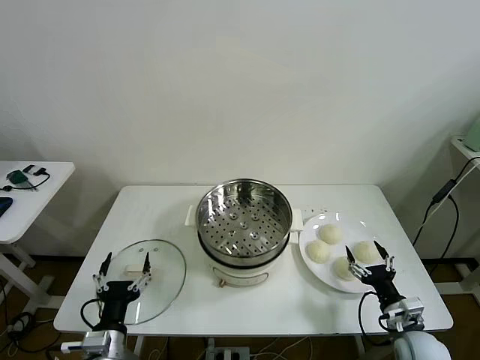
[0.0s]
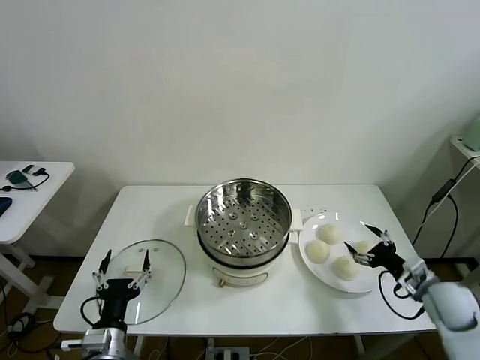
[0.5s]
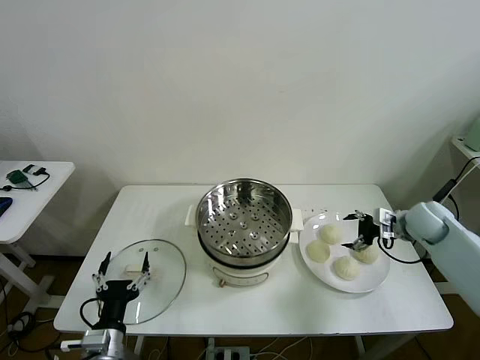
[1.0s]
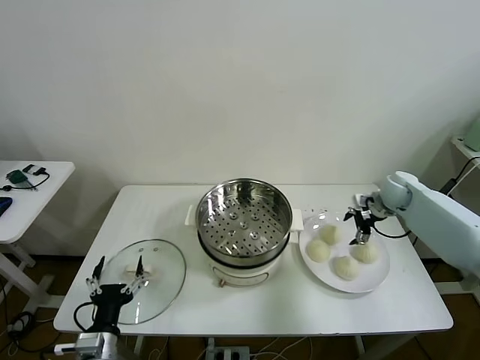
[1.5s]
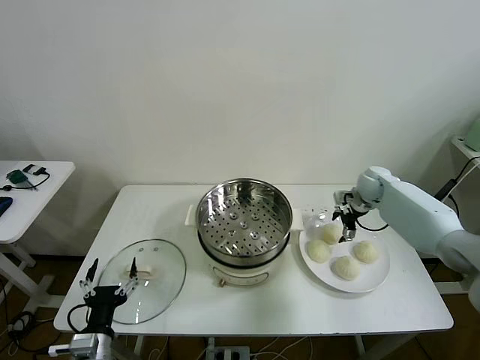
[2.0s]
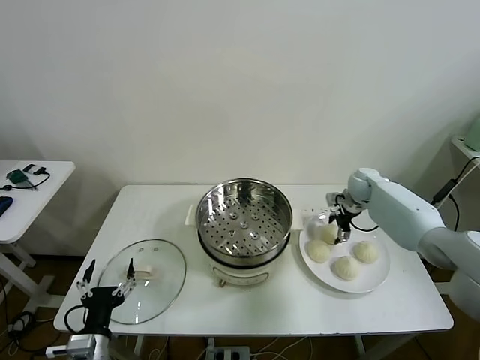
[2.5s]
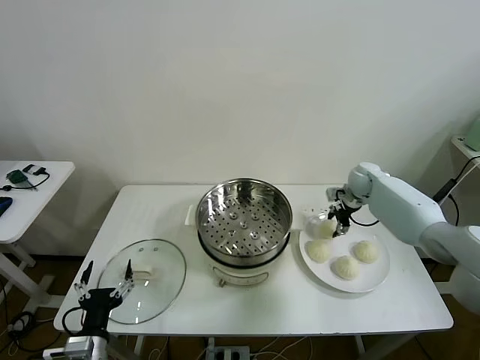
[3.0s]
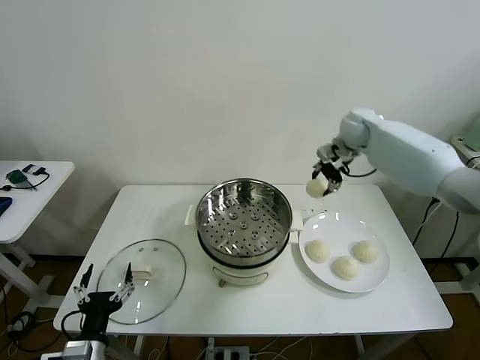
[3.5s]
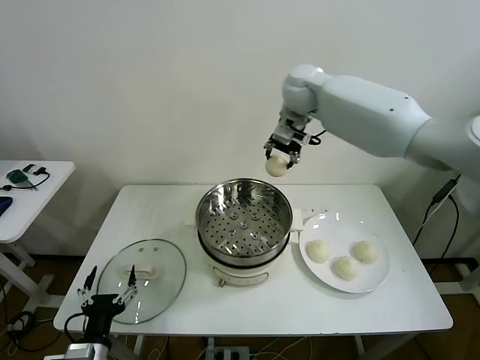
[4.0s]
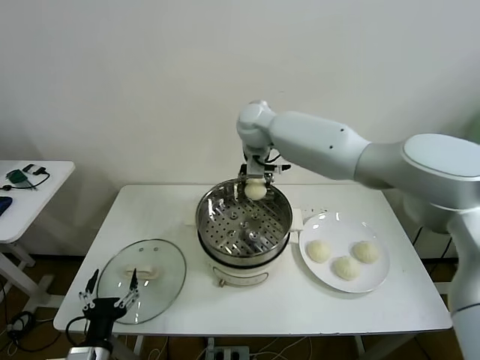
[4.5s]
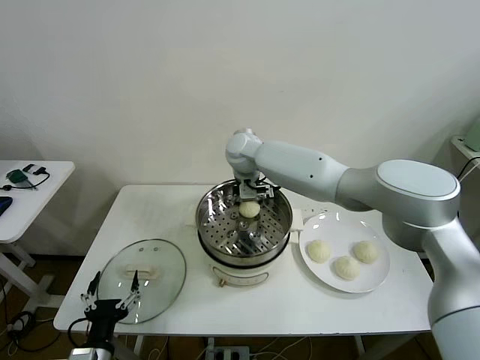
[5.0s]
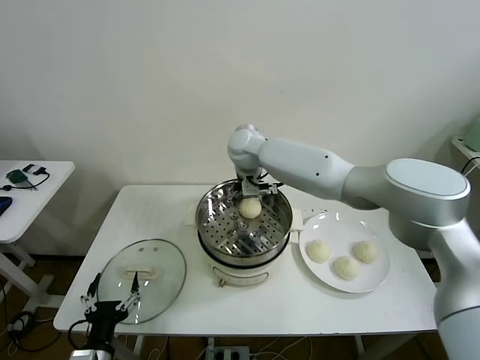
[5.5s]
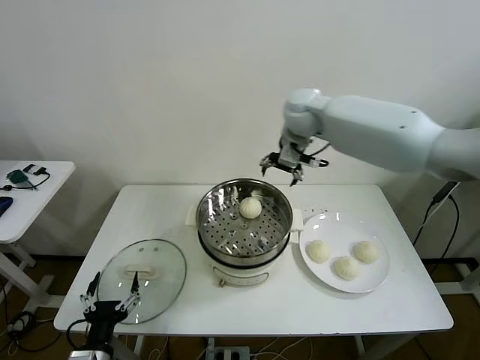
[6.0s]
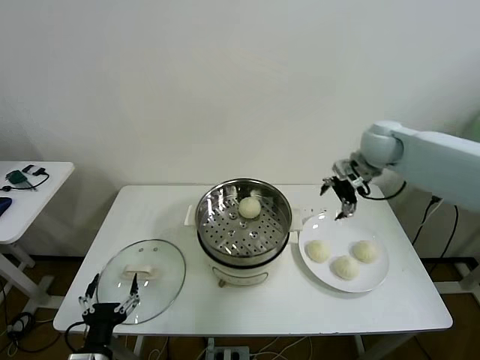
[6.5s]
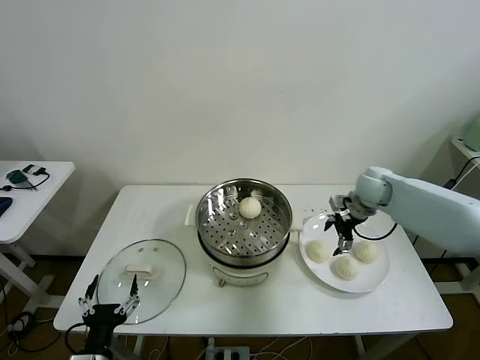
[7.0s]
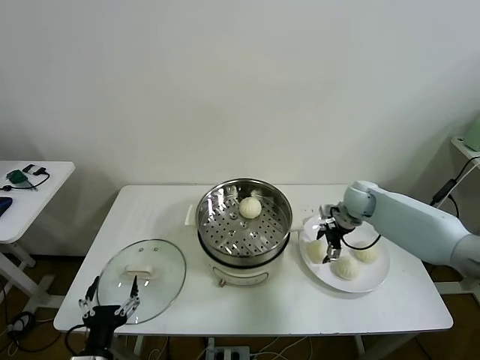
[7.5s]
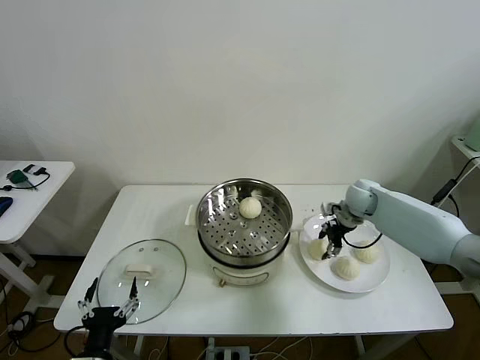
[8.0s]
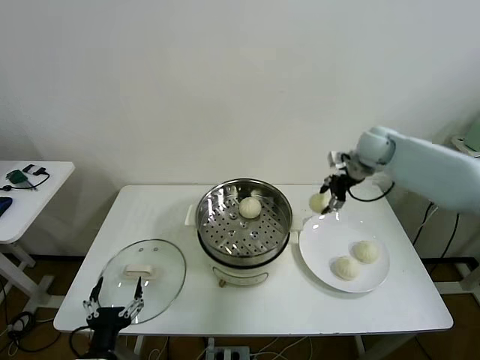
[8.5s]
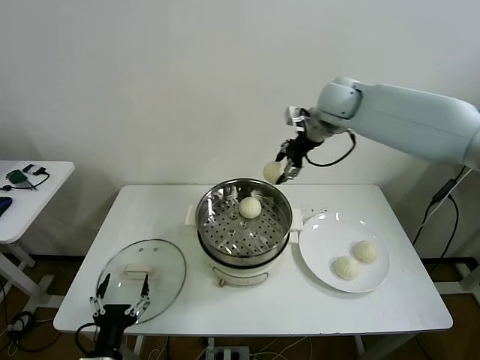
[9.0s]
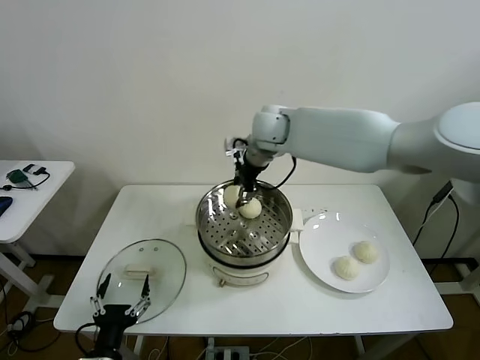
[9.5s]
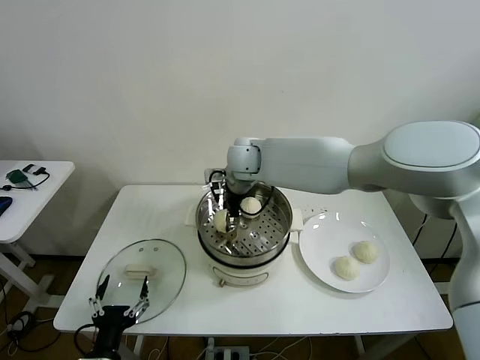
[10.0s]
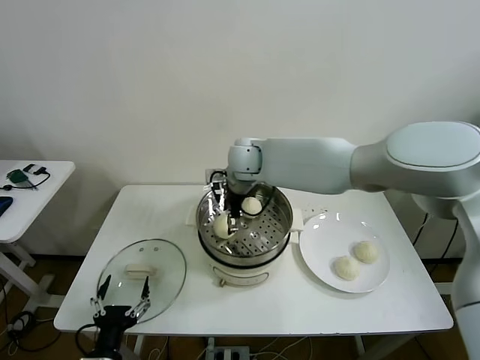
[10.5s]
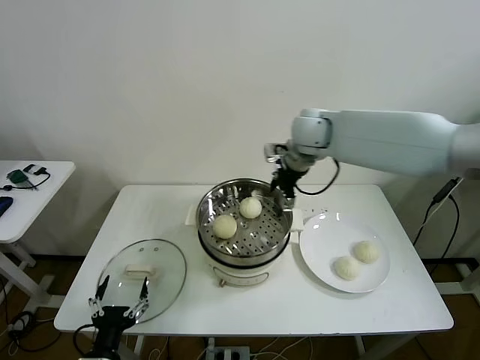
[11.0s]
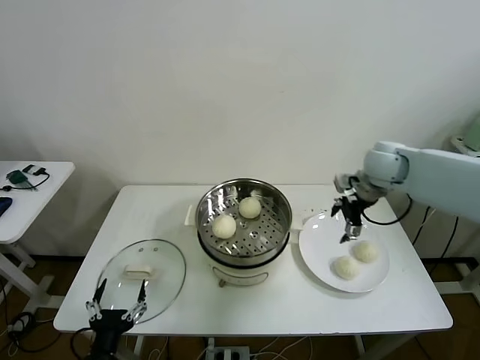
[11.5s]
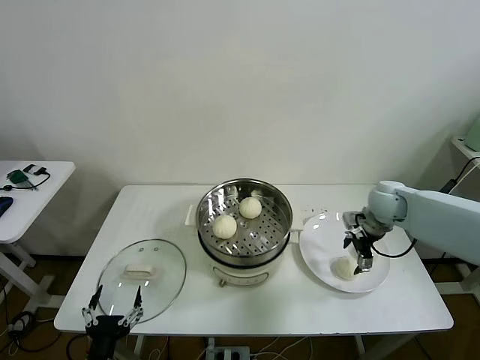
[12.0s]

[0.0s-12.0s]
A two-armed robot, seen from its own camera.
Task of the whole recording: take steamed baozi put them in steamer then cover it.
Step, 0.0s to 2.5s: Grasp the baozi in the plate with right gripper.
Step, 3.0s to 5.0s: Place the baozi on the steamer with right gripper.
Step, 5.5s to 8.0s: Grasp the baozi in the plate with right gripper.
Step, 8.5s to 10.0s: Place the baozi on the steamer with right gripper.
2.0s to 4.0s: The right gripper shifts about 35 cm upward and to the left, and closes its fingers.
4.0s to 6.0s: The right gripper moves to the right, roughly 5 cm, and opens up.
6.0s to 8.0s: The right gripper moves downward and to the right, some 30 cm, and closes.
8.0s to 10.0s: The right gripper shifts about 35 cm to the left and upward.
10.0s to 12.0s: The right gripper is displaced to the right by about 35 cm, and opens its fingers.

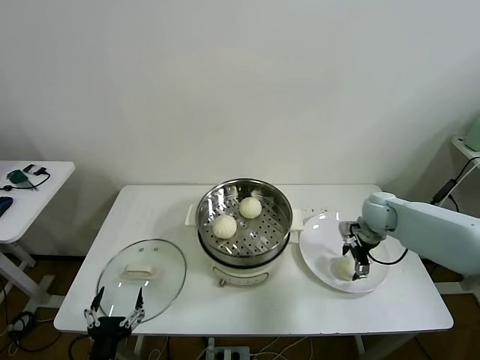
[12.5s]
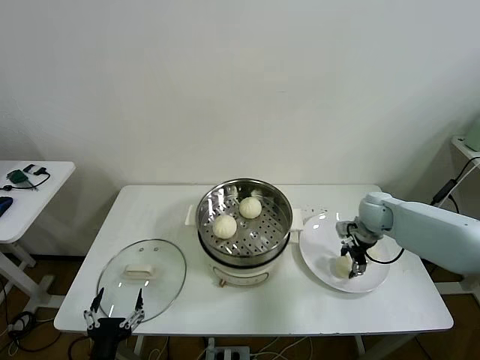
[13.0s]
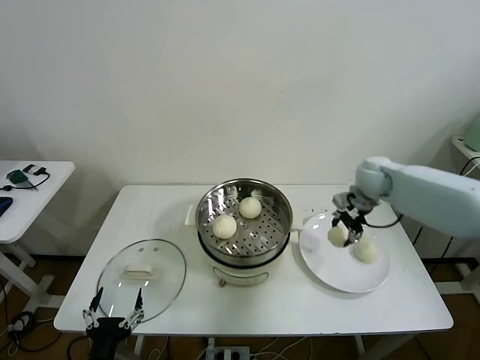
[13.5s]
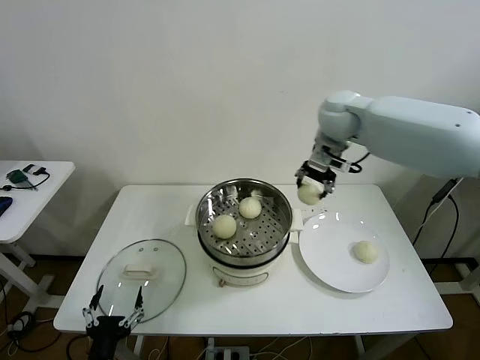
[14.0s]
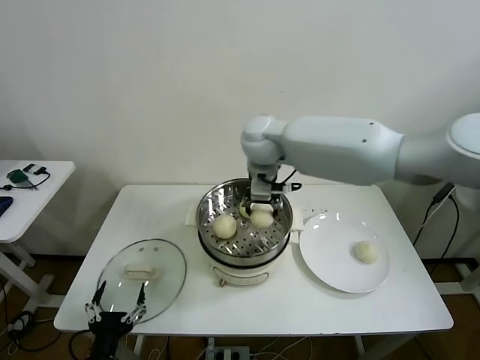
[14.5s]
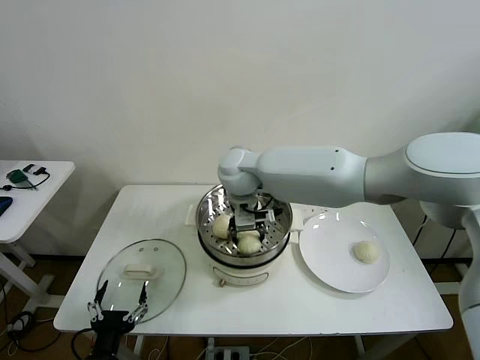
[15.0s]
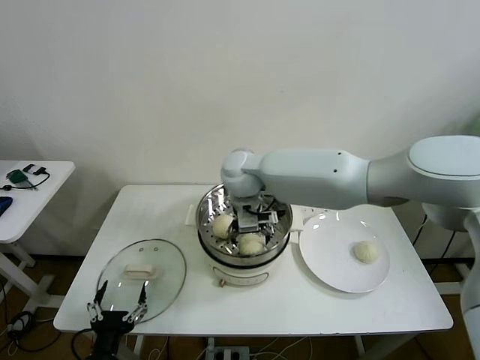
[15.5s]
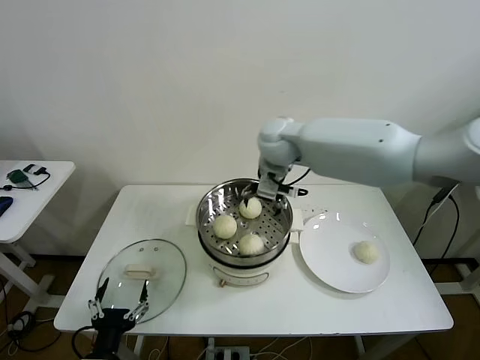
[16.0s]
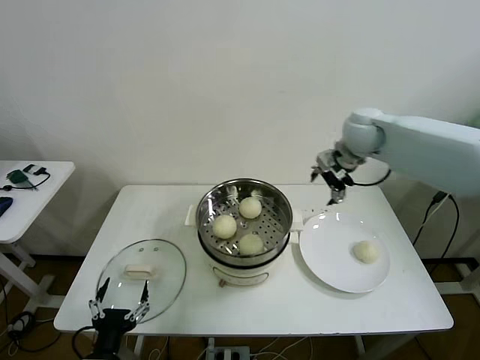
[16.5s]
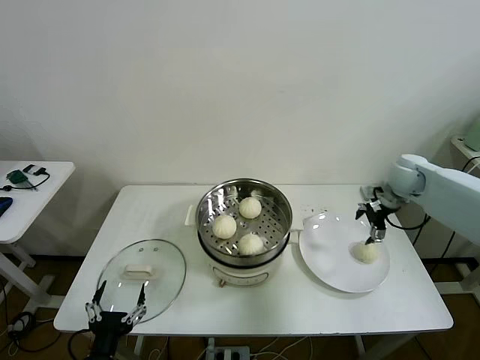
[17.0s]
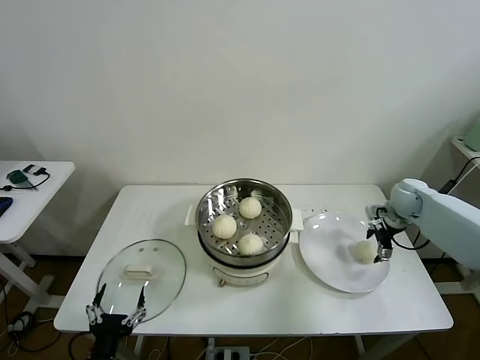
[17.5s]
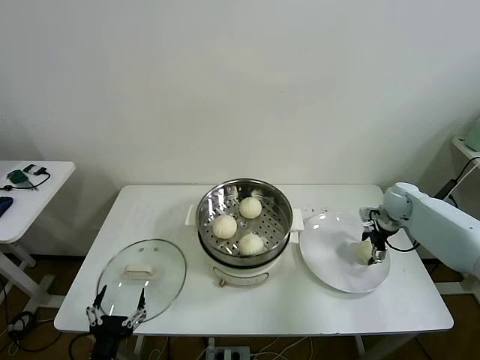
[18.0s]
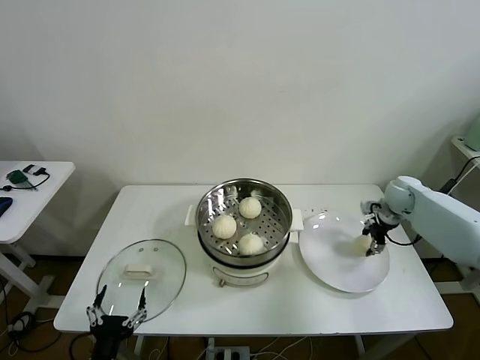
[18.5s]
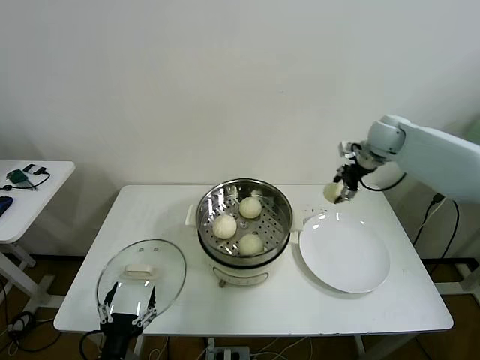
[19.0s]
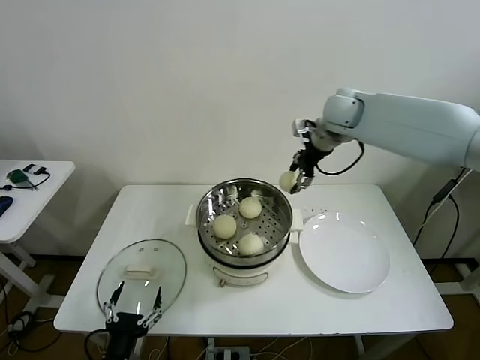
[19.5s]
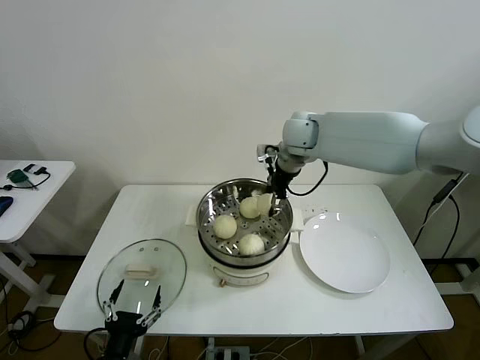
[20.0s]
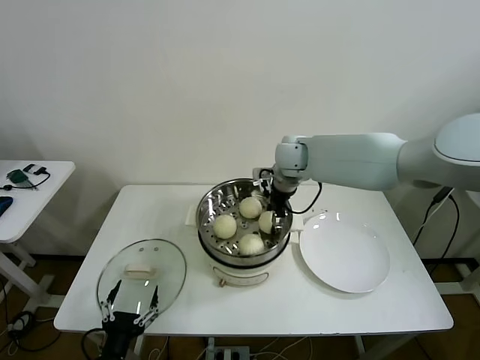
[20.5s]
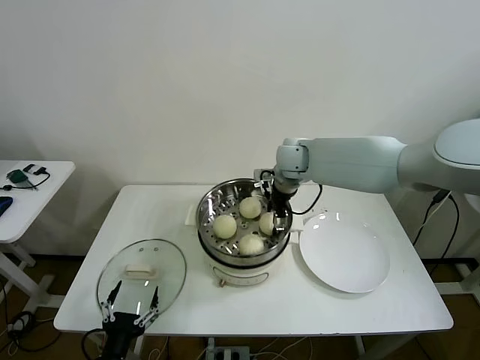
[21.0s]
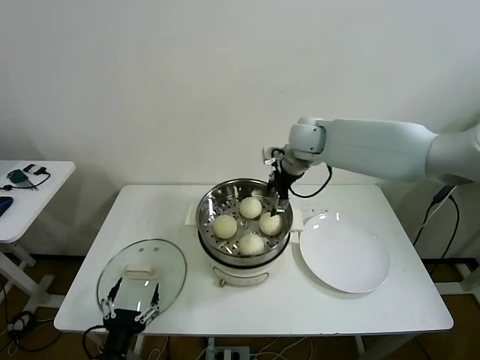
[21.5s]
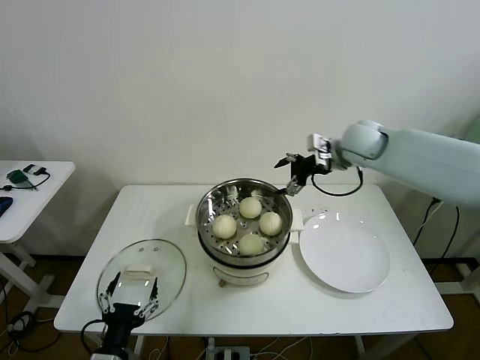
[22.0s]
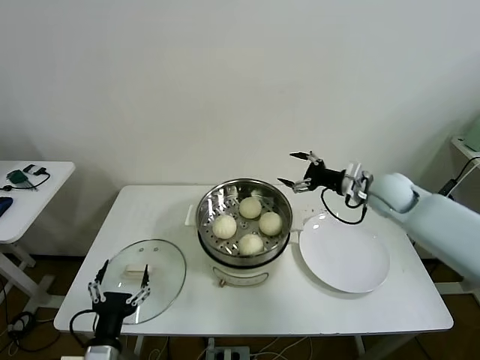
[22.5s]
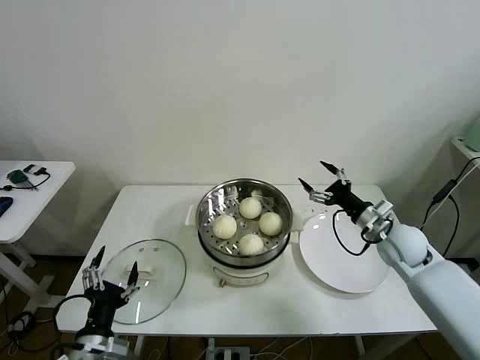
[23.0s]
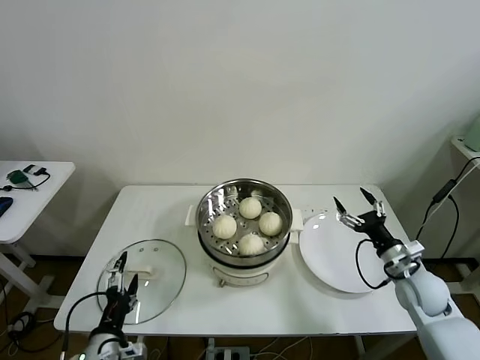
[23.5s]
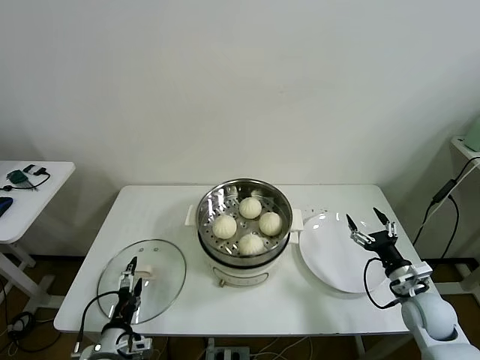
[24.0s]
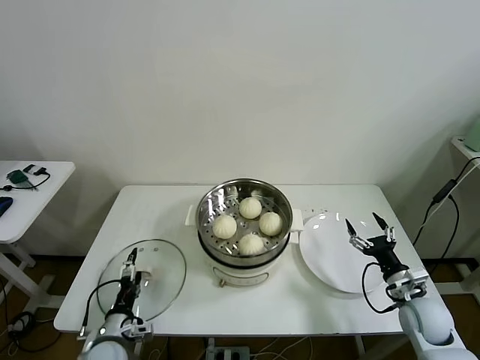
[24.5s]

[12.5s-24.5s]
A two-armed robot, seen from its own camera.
Task of the whole recording: take steamed baozi put them in steamer then cover it.
Step, 13.0s to 15.0s: Place the baozi on the steamer with right gripper.
Step, 15.5s to 18.0s: Grasp the baozi in the plate with right gripper.
Step, 18.5s to 21.0s: Place the baozi on the steamer with right gripper.
12.5s to 14.5s: The right gripper travels to the left and upward by about 40 cm, and closes its fingers.
14.5s to 16.5s: The right gripper moves to the right, some 25 cm, and opens.
16.5s to 18.5s: The right gripper goes about 25 cm downward and to the right, and closes up.
18.5s to 20.5s: The right gripper shifts some 35 cm to the left and upward.
20.5s to 22.5s: The right gripper moves to the right, approximately 20 cm, and opens up.
22.5s to 24.5s: The left gripper moves downward and forward, some 15 cm. Meanwhile the right gripper heads backward and downward, covering some 30 cm.

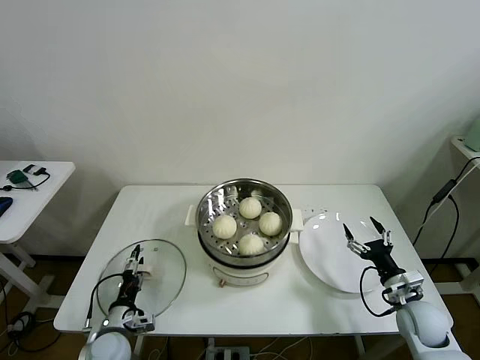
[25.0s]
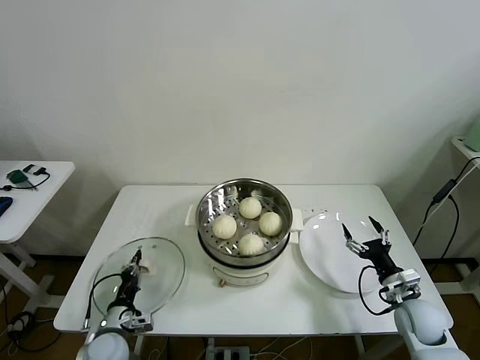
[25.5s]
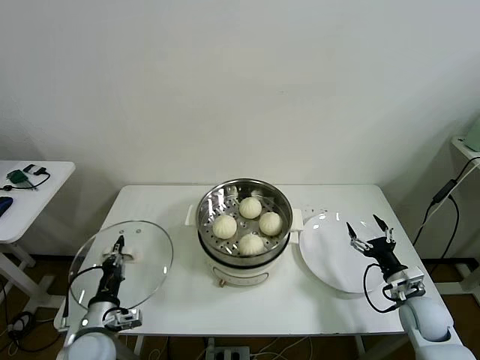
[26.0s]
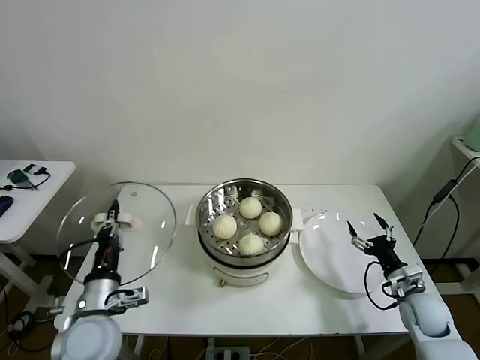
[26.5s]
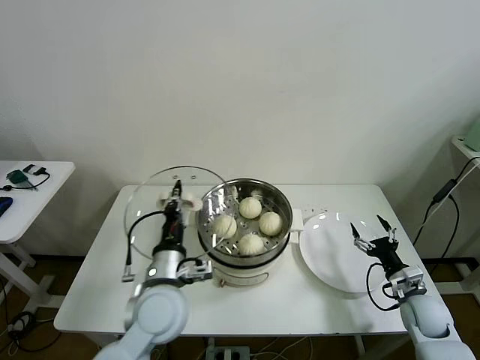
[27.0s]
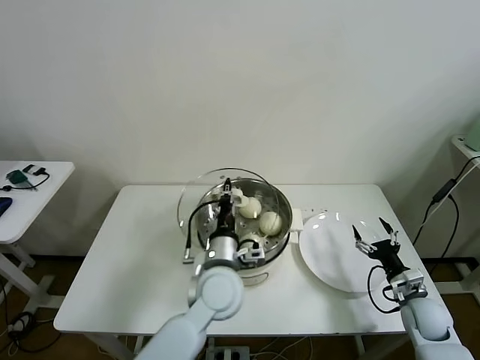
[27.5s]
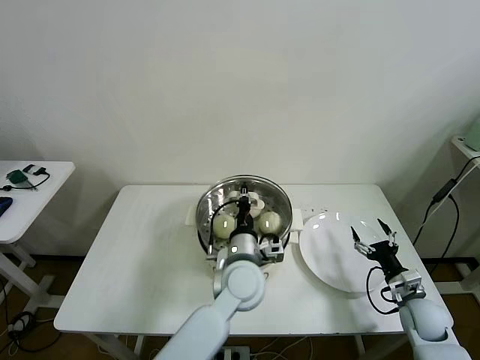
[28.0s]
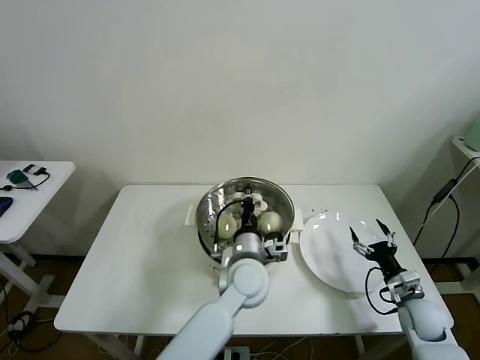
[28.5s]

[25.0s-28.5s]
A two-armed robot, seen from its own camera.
Task of the whole recording: take steamed baozi put them in steamer then cover it.
25.0s to 27.0s: The left gripper travels upward and to the right by approximately 25 cm, and closes.
27.0s to 28.5s: The left gripper travels to the right and forward by some 20 cm.
